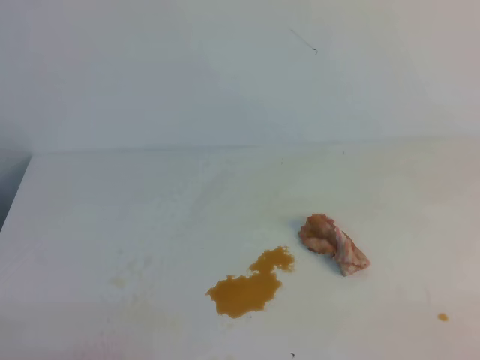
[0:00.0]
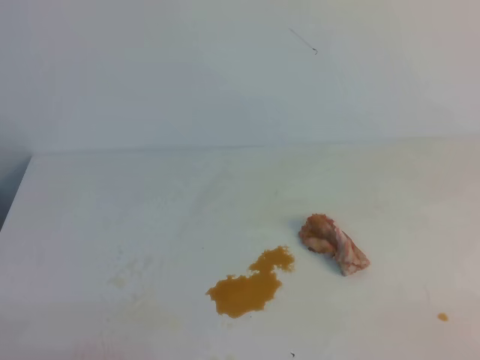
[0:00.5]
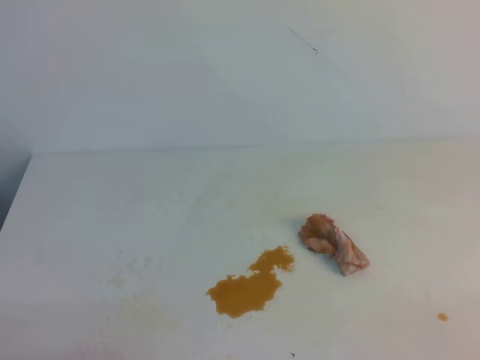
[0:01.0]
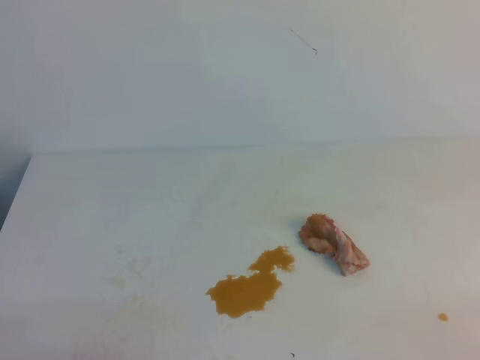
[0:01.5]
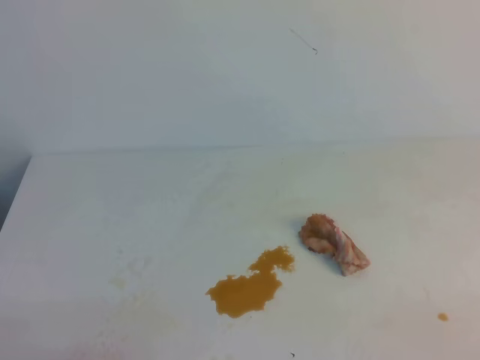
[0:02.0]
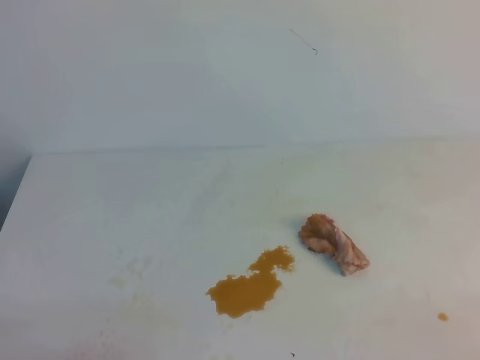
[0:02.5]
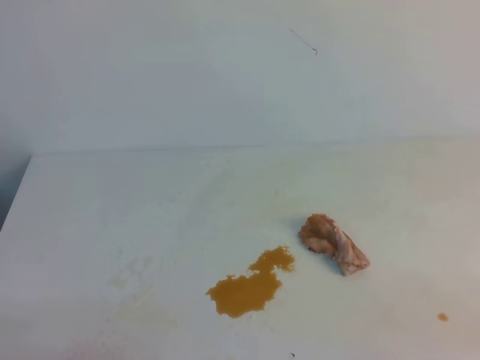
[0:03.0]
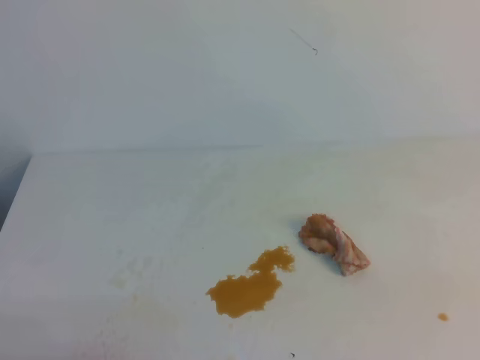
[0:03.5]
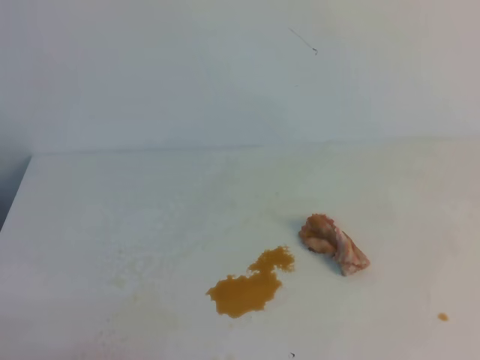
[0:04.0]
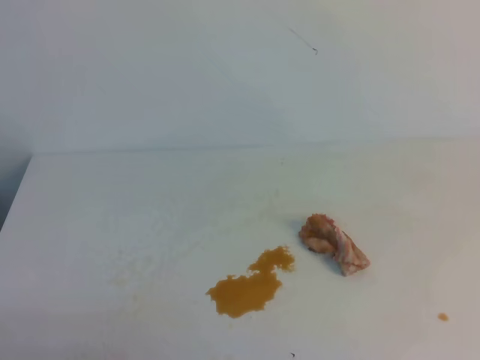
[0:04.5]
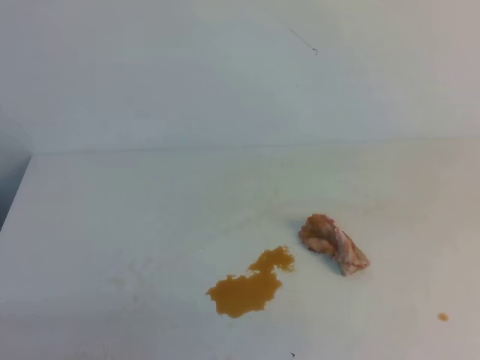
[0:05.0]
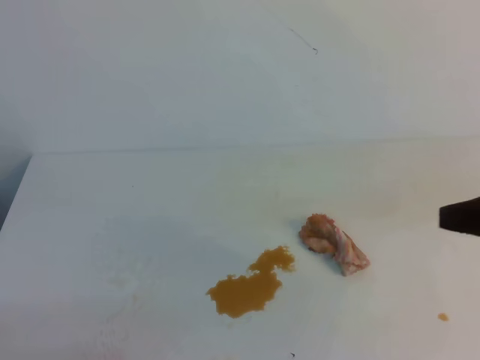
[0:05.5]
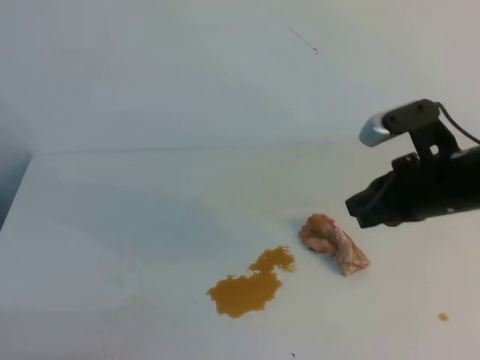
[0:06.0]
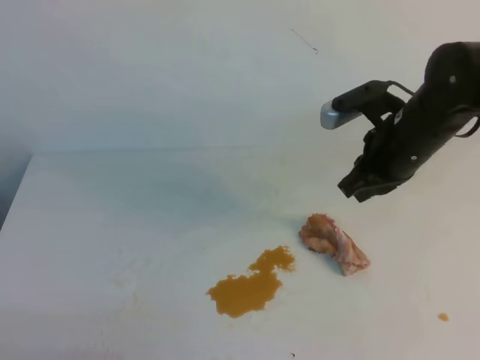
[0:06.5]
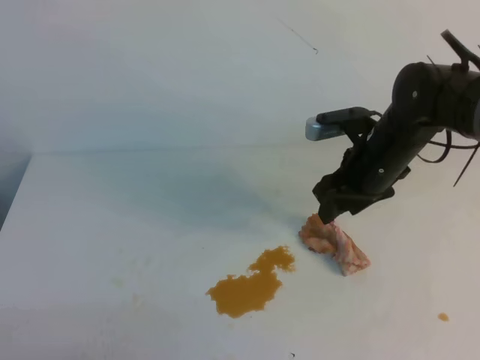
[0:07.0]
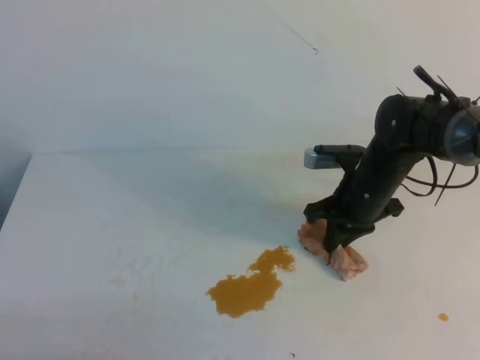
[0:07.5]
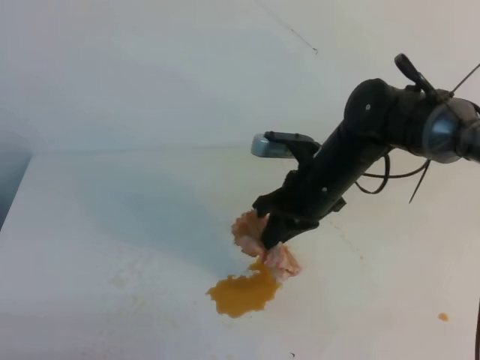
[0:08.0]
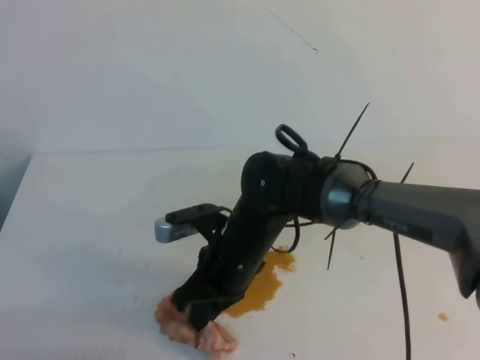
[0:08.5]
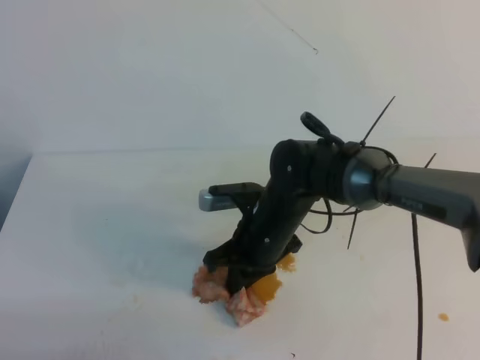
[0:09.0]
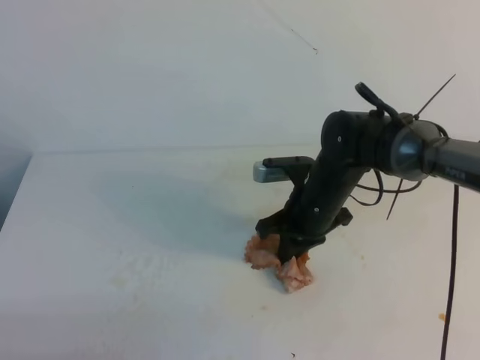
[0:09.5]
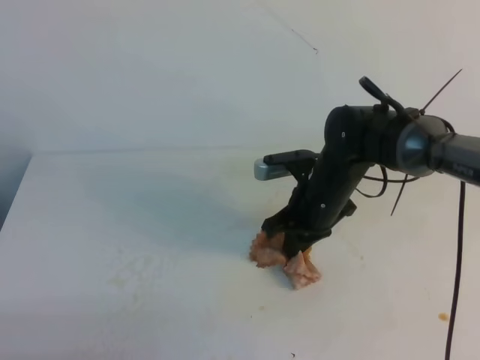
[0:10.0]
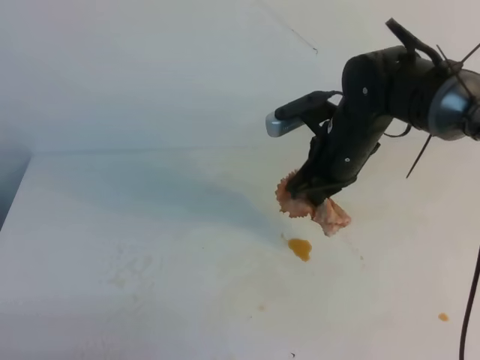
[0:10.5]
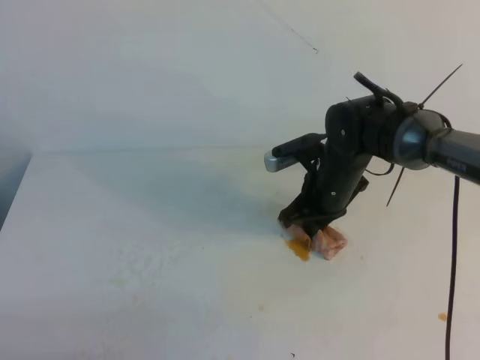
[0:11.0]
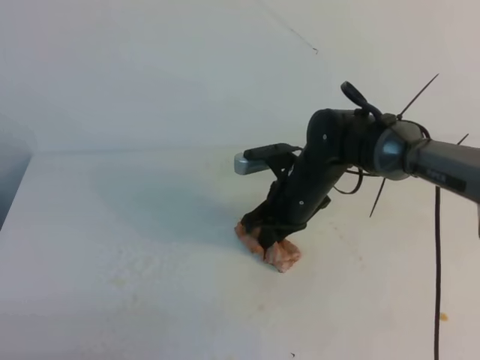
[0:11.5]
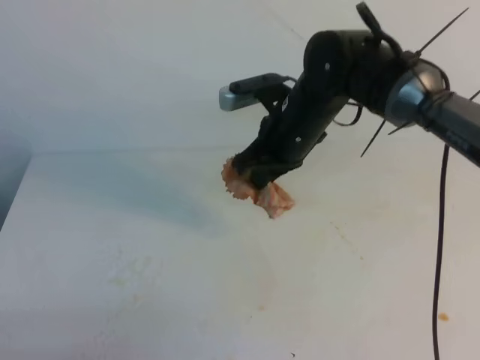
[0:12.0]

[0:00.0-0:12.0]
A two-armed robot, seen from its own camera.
0:00.0 to 0:02.0: Neither gripper changes place.
0:04.0 to 0:06.0: The right gripper shifts some 30 cm forward and to the left.
0:06.0 to 0:08.0: The right gripper travels to the left, forward and downward by approximately 15 cm, and opens and closes again.
0:08.0 to 0:10.0: The right gripper reaches roughly 10 cm to the left, then returns.
0:10.0 to 0:12.0: The right gripper goes up and down, about 10 cm each way, reversing 2 times.

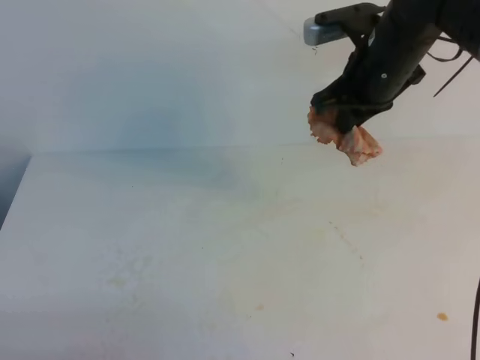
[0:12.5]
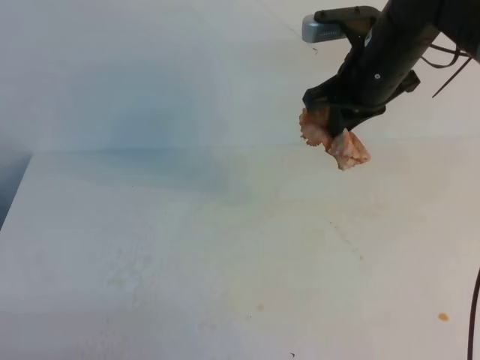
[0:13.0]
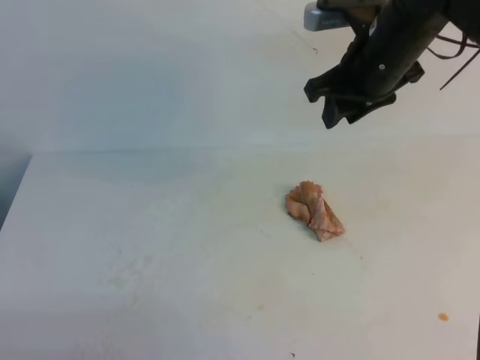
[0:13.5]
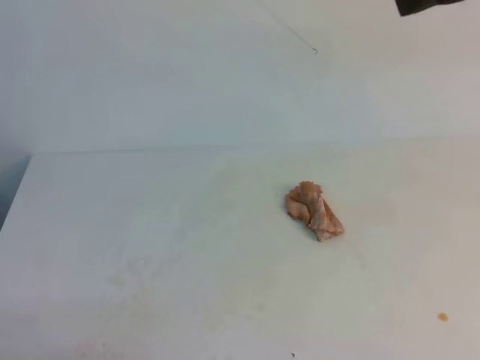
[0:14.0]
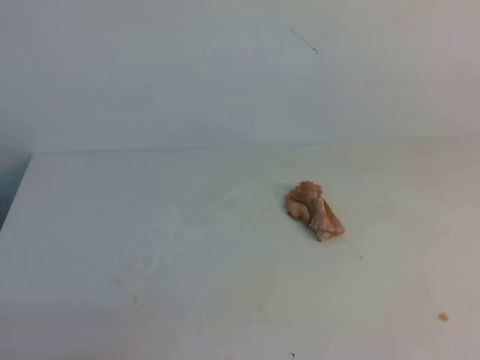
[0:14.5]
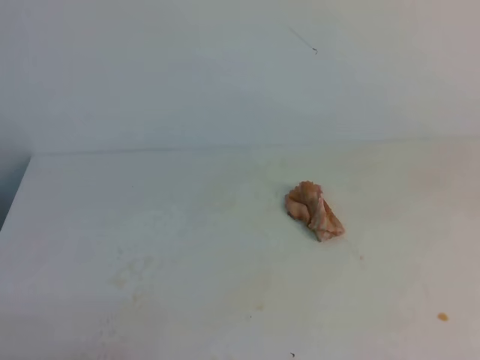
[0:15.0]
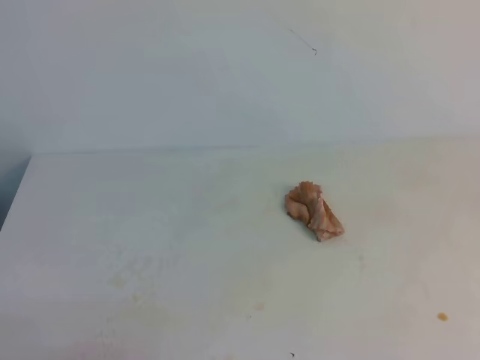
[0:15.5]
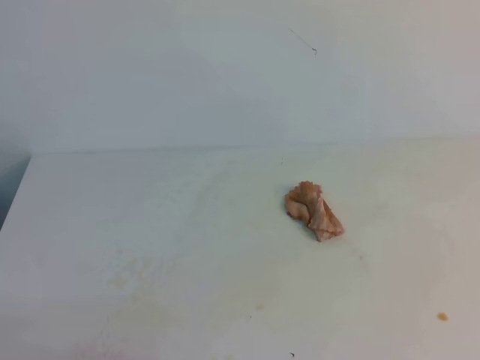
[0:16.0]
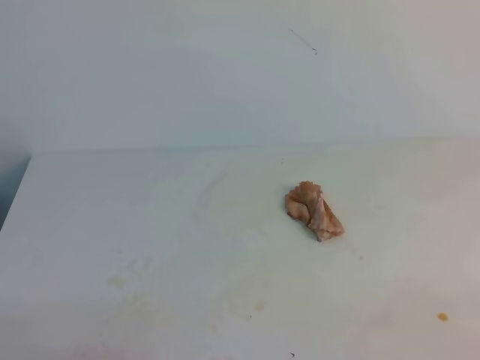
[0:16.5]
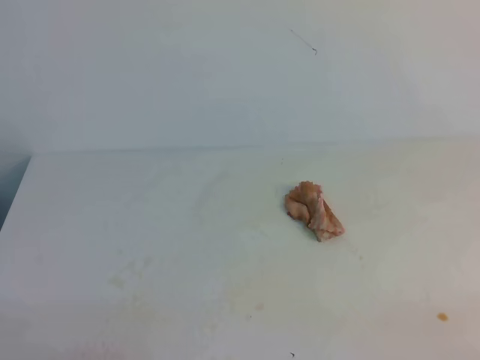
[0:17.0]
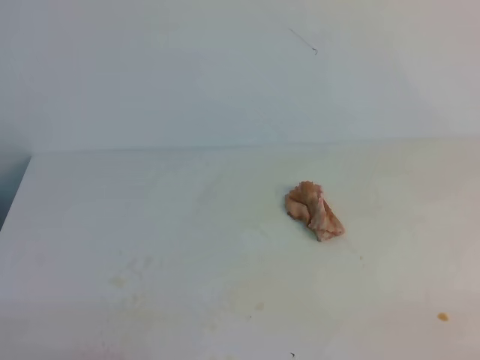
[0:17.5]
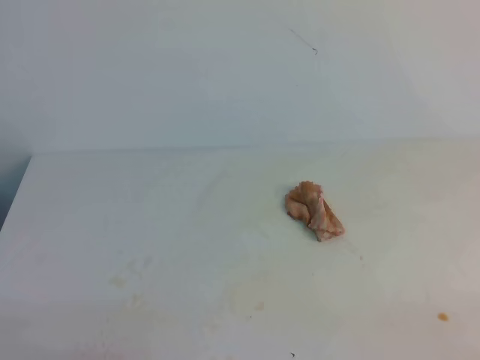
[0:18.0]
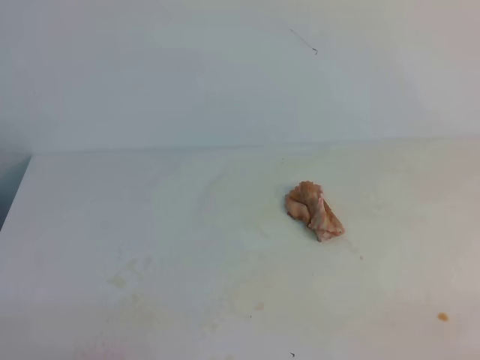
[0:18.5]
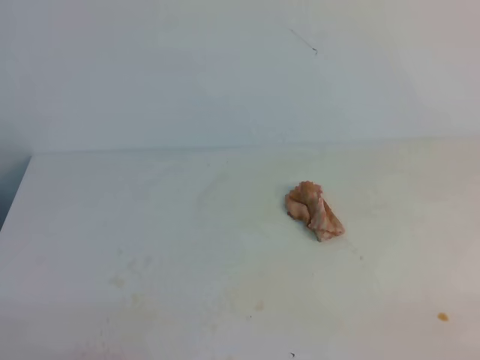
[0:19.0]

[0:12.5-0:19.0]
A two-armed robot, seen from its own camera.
0:12.5 to 0:14.5: The right gripper is displaced backward, upward and to the right by approximately 30 cm, and opens and closes again.
0:17.0 to 0:19.0: The two grippers keep their place.
